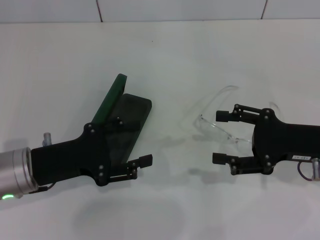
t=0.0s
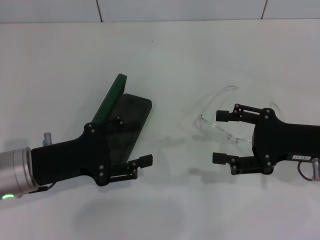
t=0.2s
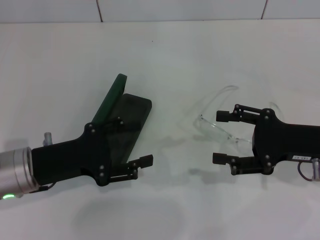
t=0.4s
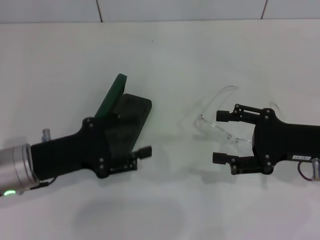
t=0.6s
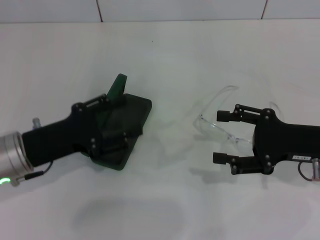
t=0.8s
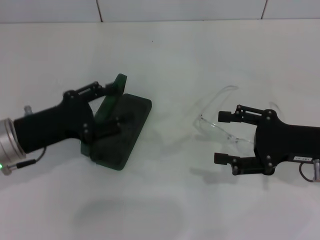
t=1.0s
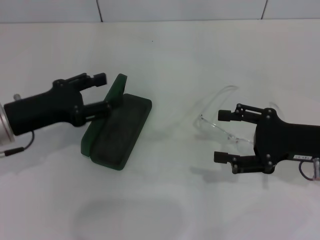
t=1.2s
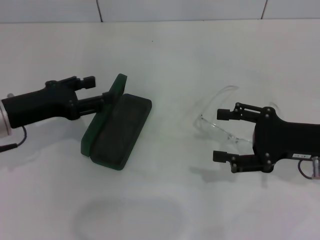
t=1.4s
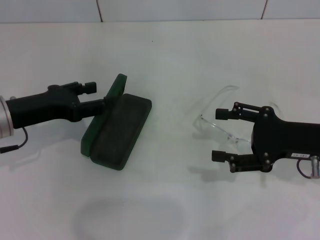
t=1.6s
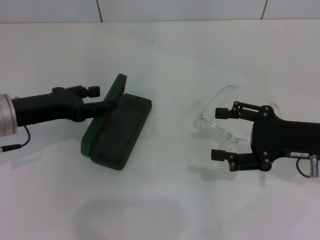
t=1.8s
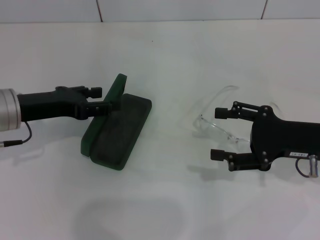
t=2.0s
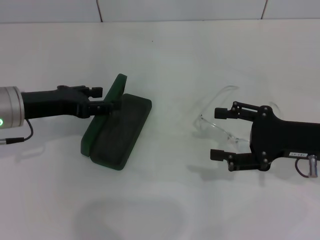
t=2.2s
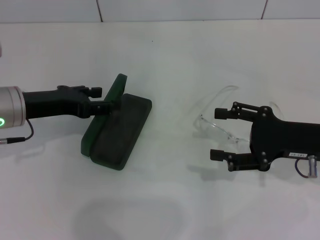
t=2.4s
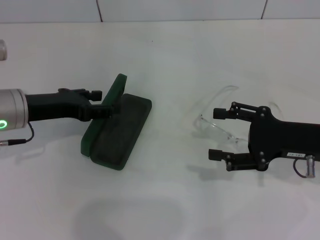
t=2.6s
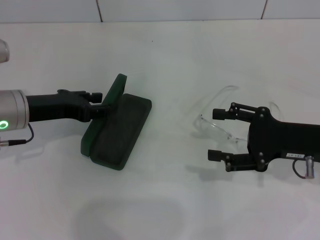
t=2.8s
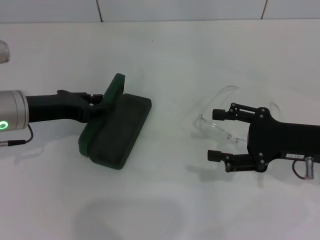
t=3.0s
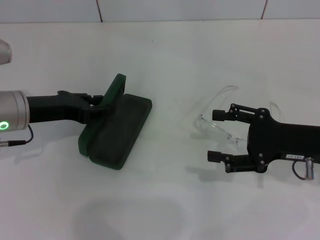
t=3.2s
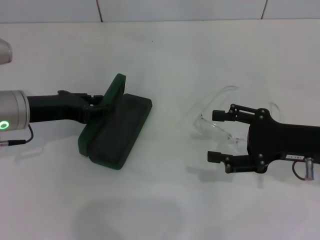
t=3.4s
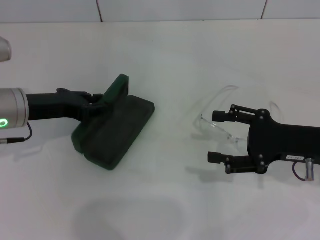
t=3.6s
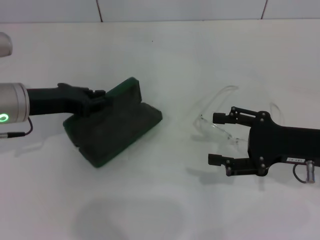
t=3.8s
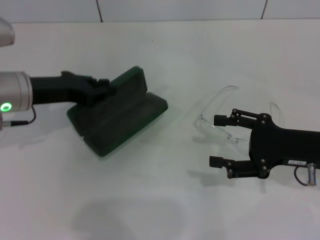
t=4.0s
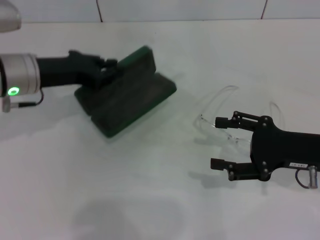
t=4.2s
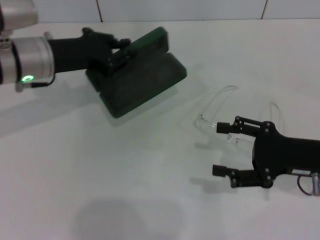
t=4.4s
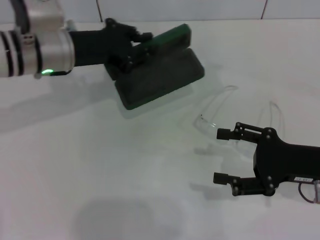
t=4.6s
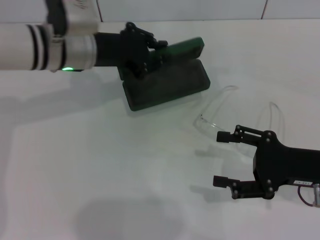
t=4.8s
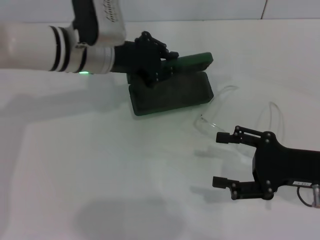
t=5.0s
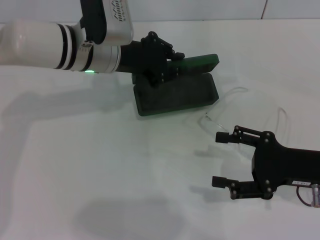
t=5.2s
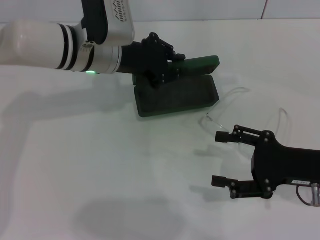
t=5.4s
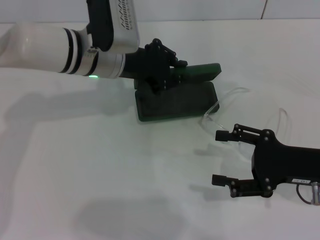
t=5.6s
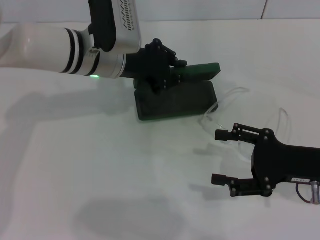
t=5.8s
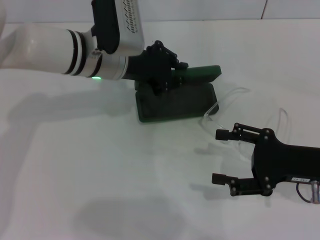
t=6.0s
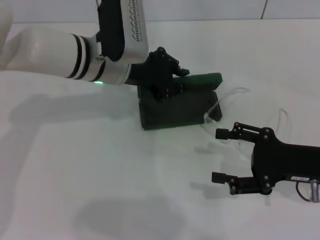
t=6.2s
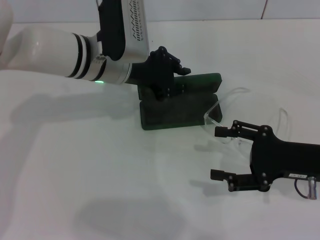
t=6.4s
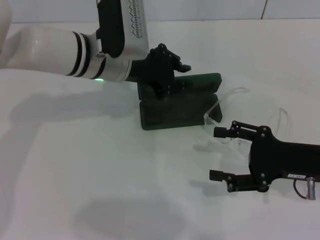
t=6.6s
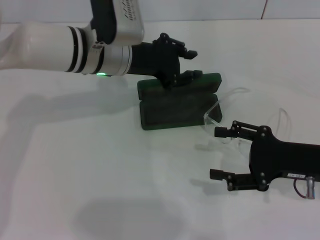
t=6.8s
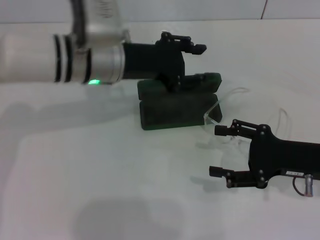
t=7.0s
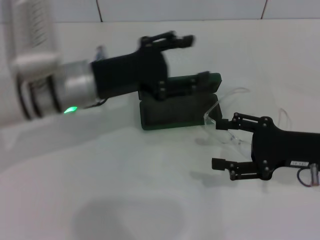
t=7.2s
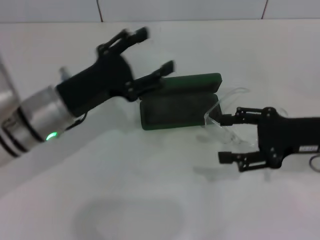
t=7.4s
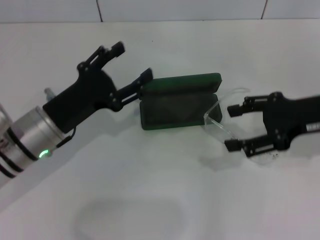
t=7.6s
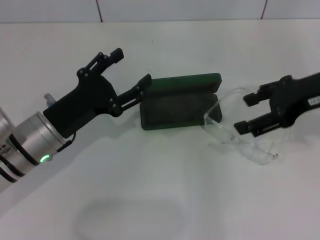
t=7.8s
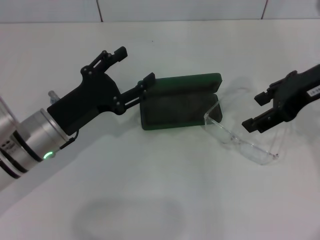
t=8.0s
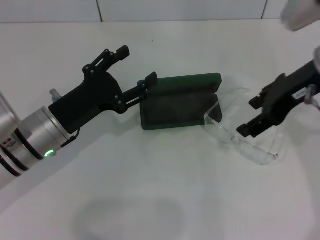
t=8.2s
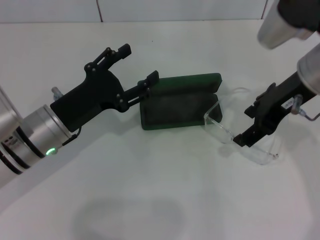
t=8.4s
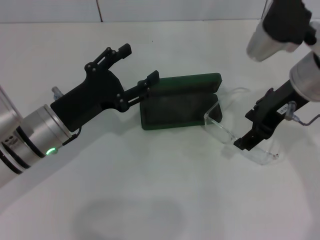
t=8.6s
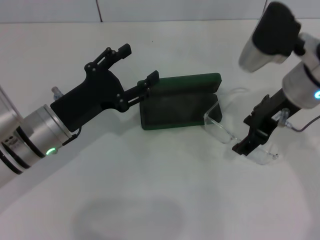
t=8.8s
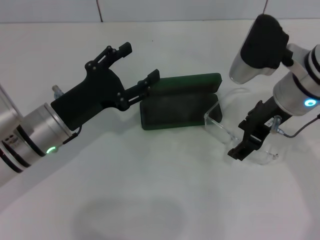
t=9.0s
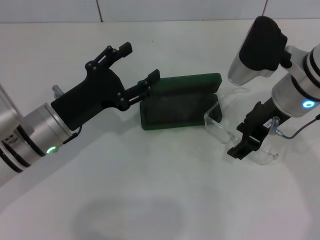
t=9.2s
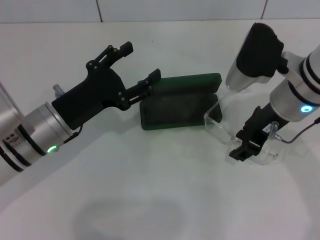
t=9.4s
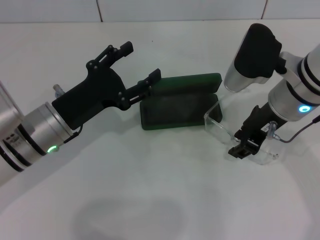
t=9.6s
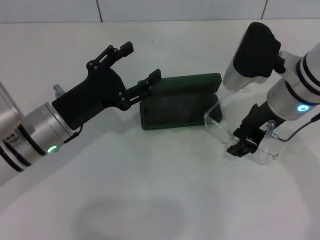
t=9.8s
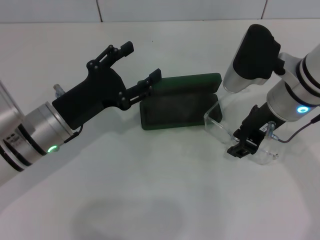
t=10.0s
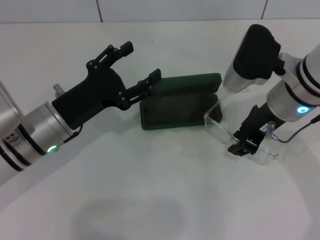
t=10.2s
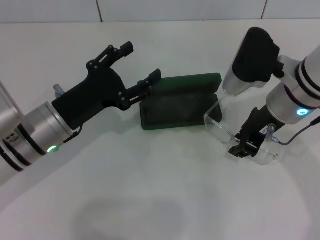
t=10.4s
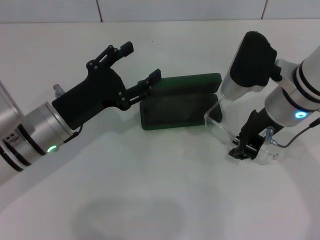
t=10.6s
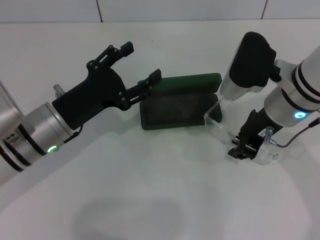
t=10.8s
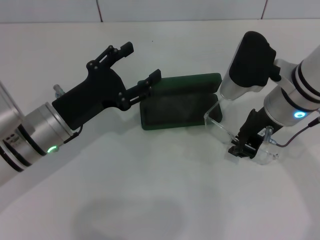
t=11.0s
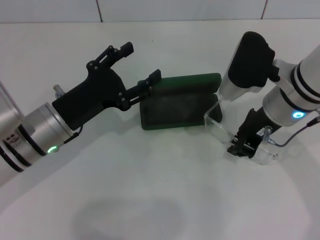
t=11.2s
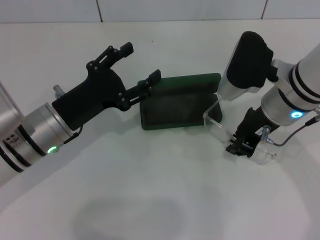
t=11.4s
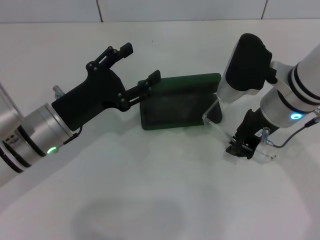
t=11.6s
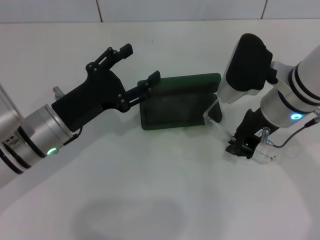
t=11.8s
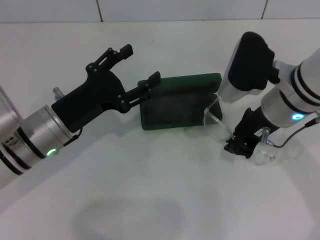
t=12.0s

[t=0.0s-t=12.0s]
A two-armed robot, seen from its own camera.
Step, t=0.0s to t=3.4s: Grab the glasses case with your left hand.
Step, t=3.6s to t=6.6s: Place the glasses case in the center of the table with your left hand.
Step, t=6.8s to t=11.2s: Grab the eyeglass frame with your right hand.
t=0.0s to t=1.6s: The left gripper is displaced forward by approximately 5 cm.
t=1.6s to t=3.0s: The grippers move only a little.
t=3.0s to t=4.4s: The left gripper shifts by approximately 5 cm, and closes up.
t=4.4s to t=6.0s: The left gripper goes approximately 10 cm to the right.
t=6.0s to t=7.6s: The left gripper moves backward, to the left and downward, approximately 15 cm, and opens. Meanwhile the right gripper goes roughly 10 cm upward.
t=7.6s to t=9.0s: The right gripper travels to the left by about 10 cm.
t=9.0s to t=10.4s: The right gripper closes up.
t=10.4s to t=12.0s: Both grippers stay about where they are.

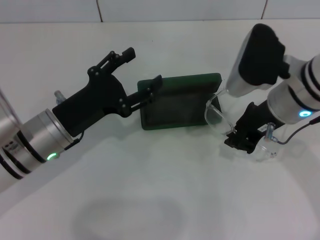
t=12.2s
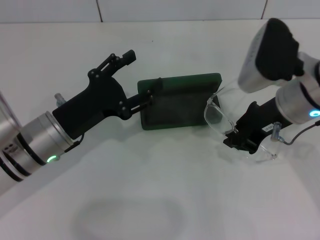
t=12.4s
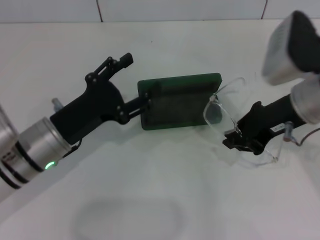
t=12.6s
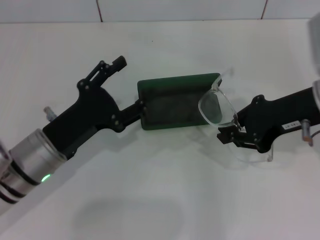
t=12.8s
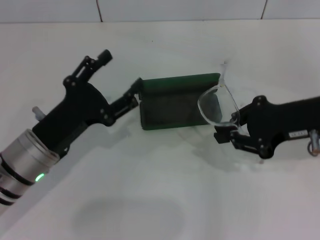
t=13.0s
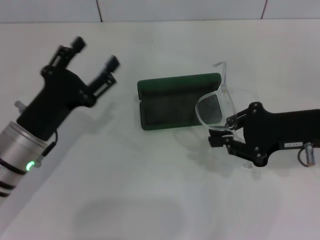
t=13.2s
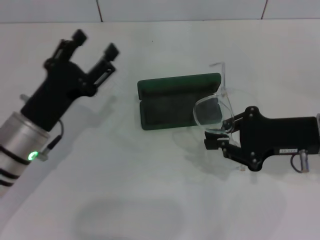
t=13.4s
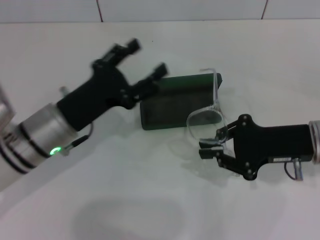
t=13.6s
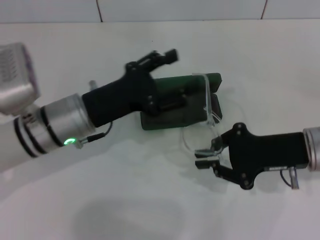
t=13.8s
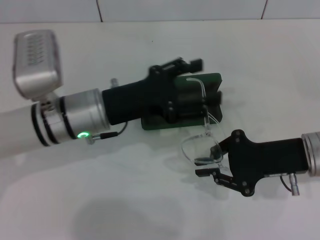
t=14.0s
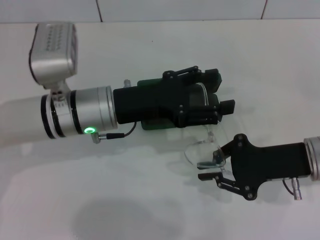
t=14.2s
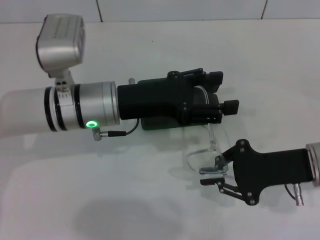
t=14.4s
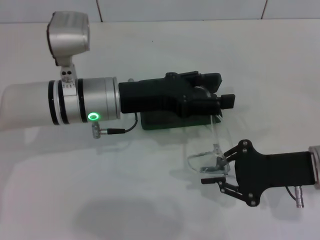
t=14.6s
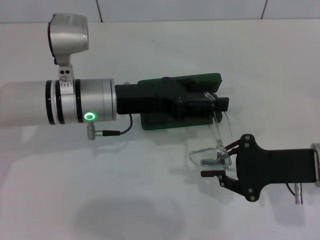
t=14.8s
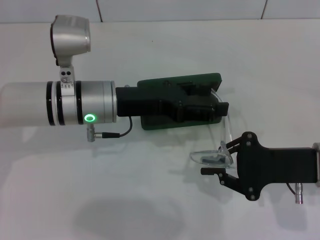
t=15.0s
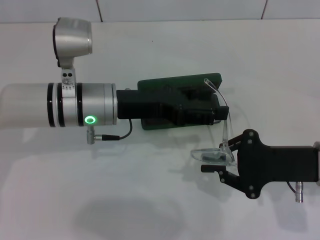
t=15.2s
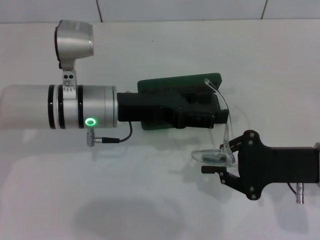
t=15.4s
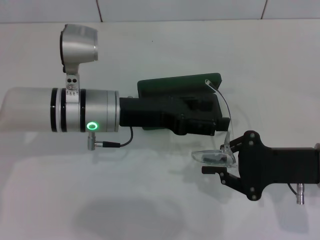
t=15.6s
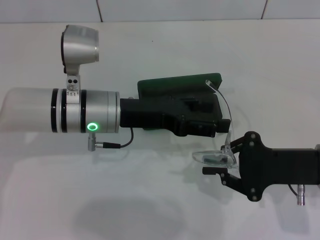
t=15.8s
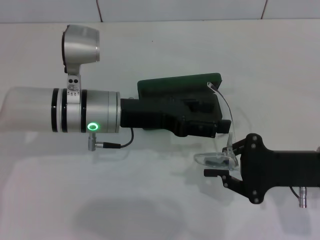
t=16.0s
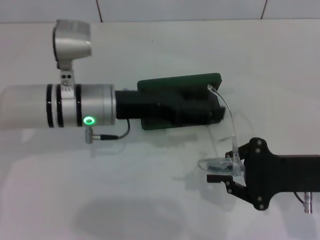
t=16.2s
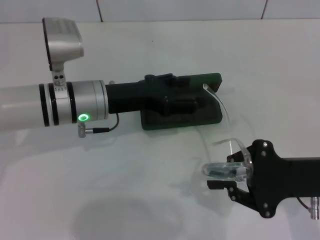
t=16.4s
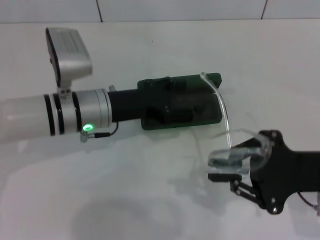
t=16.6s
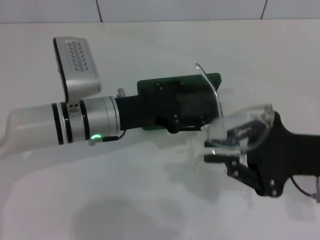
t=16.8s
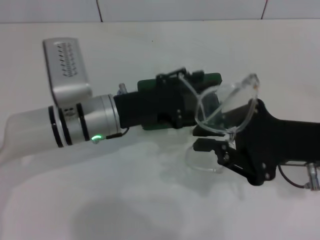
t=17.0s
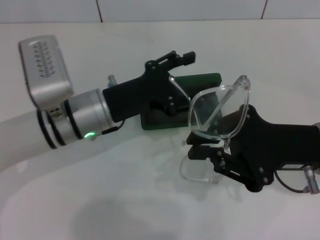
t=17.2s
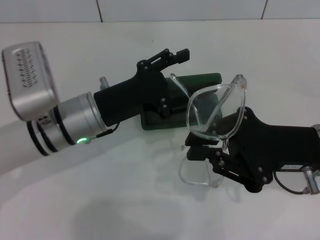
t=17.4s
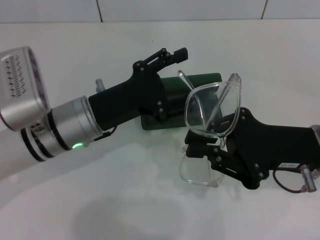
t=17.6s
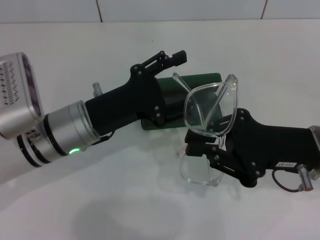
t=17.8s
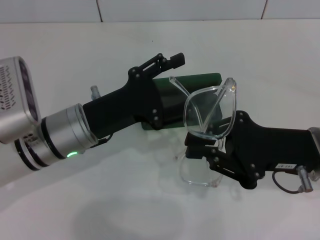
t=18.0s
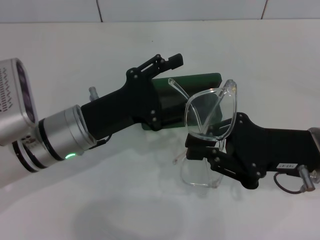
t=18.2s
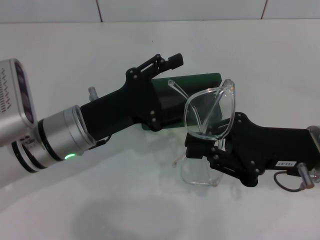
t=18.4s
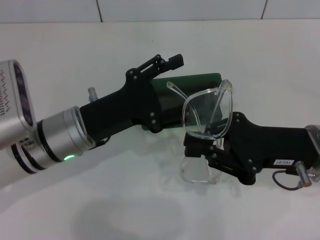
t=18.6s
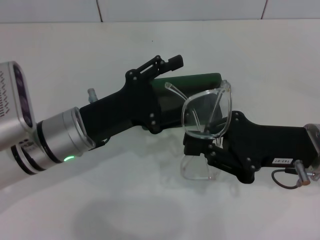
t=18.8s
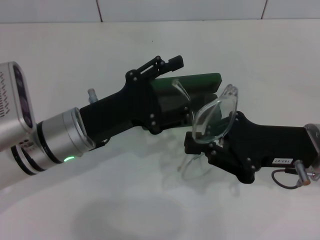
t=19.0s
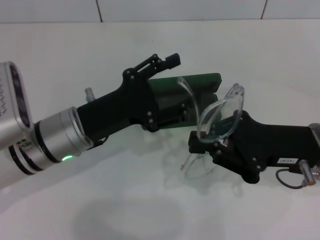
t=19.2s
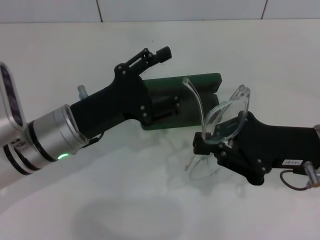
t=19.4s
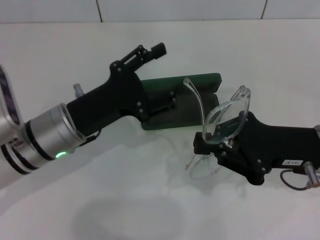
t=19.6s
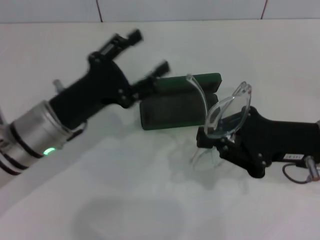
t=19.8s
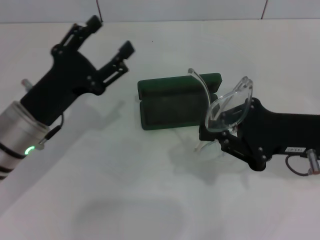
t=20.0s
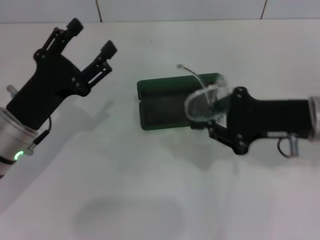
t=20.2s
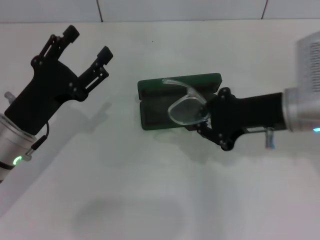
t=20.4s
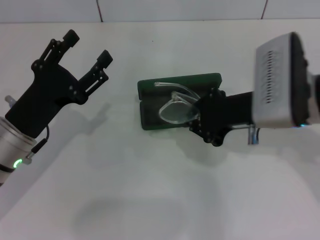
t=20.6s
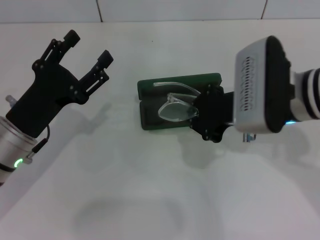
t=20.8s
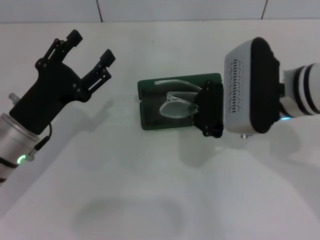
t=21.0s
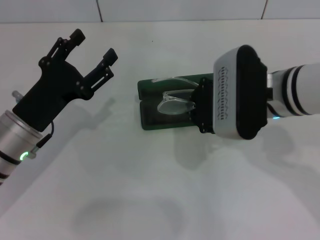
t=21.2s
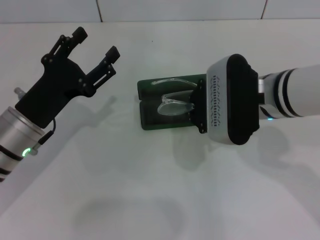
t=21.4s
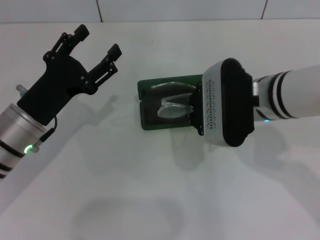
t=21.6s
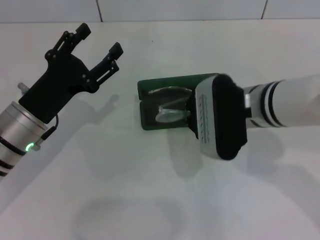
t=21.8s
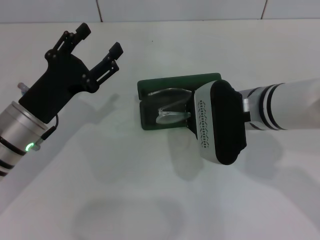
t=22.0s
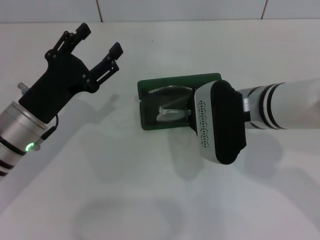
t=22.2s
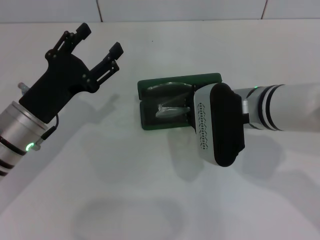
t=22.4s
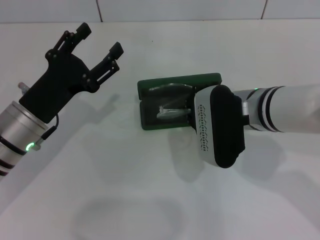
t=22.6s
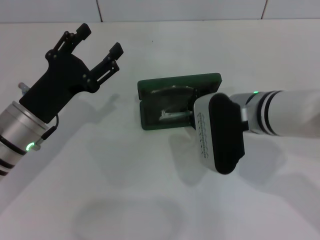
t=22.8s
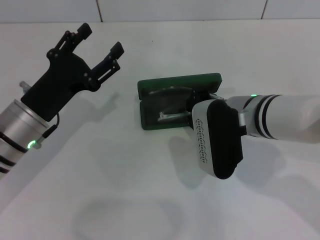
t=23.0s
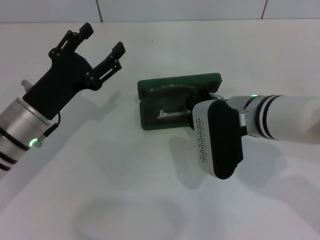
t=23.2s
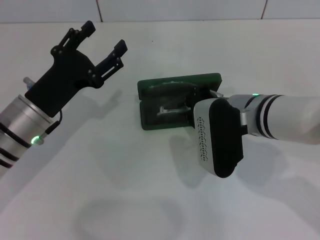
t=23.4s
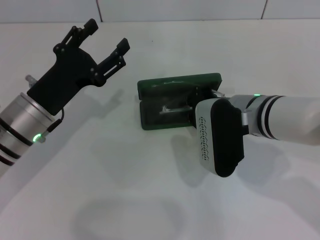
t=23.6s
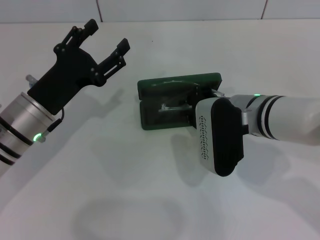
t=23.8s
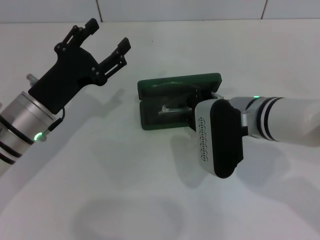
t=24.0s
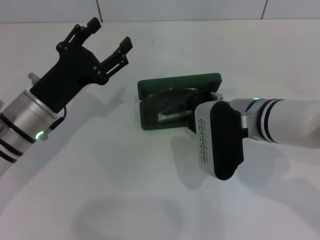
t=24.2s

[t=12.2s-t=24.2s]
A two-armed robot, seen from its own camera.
Step, t=12.2s to t=18.2s: Fold the frame with your left hand.
t=12.2s to t=13.8s: The right gripper heads to the right and downward, covering some 10 cm.
t=15.2s to t=16.6s: The grippers move only a little.
t=16.6s to t=18.2s: The left gripper goes about 5 cm backward.
t=19.8s to t=21.2s: The right gripper goes some 10 cm to the left.
t=21.2s to t=24.2s: There are only small adjustments of the grippers.
